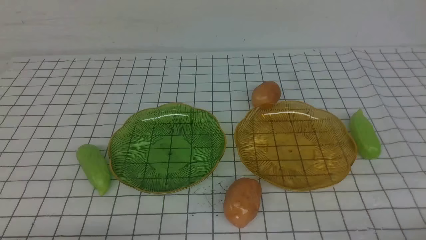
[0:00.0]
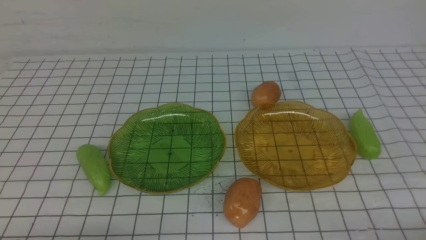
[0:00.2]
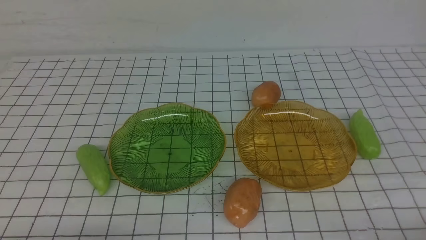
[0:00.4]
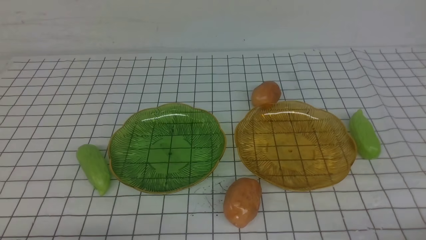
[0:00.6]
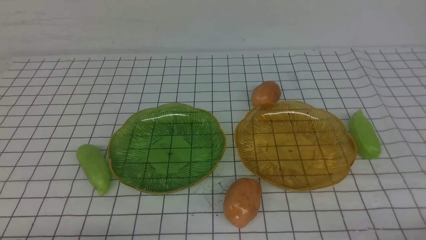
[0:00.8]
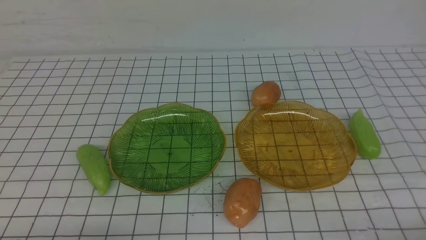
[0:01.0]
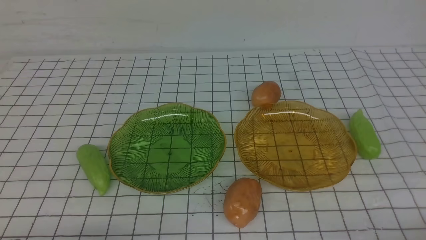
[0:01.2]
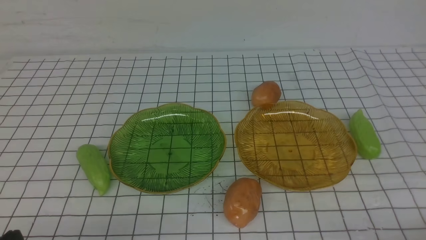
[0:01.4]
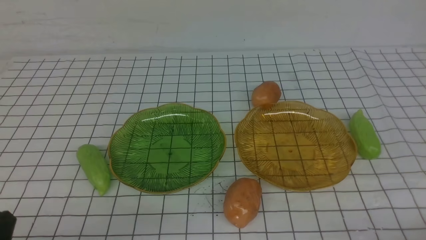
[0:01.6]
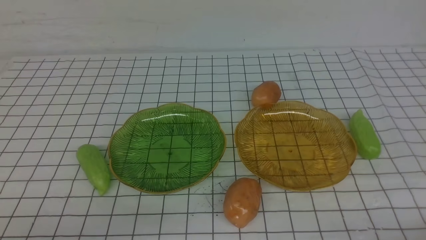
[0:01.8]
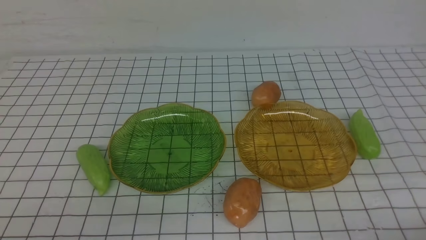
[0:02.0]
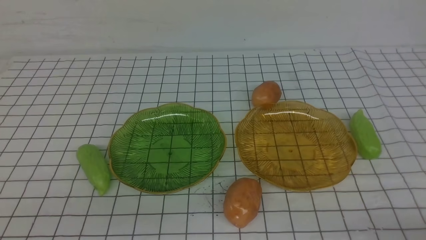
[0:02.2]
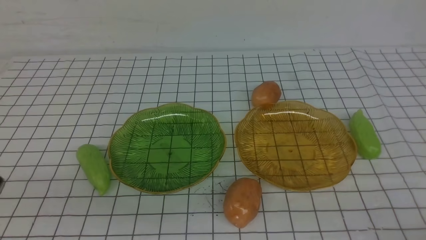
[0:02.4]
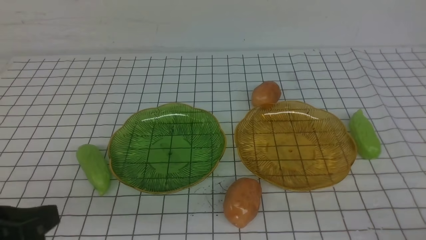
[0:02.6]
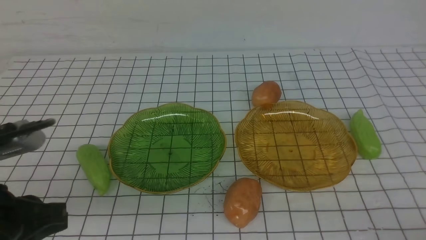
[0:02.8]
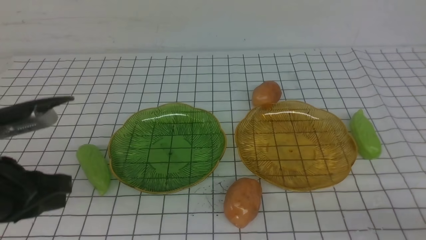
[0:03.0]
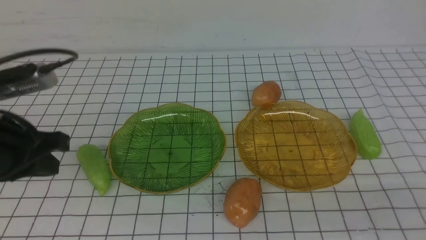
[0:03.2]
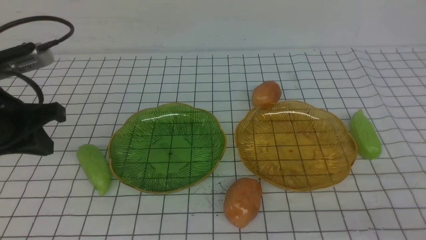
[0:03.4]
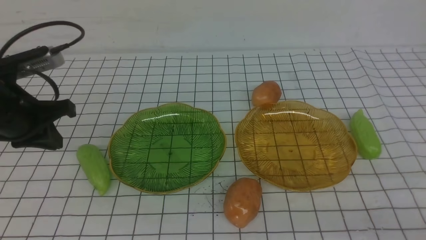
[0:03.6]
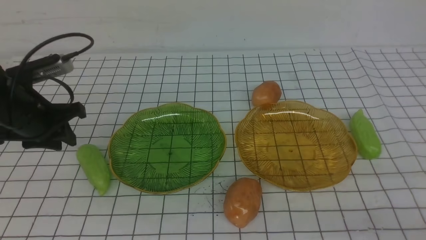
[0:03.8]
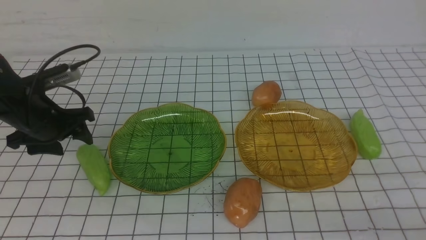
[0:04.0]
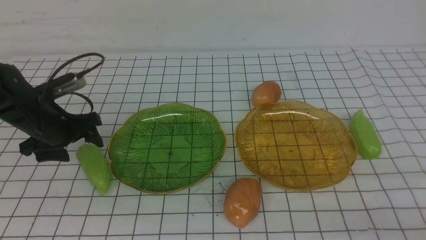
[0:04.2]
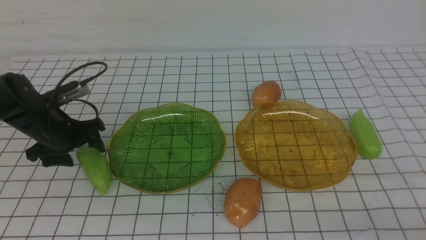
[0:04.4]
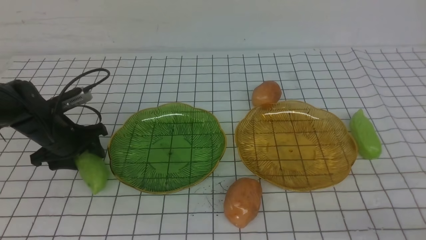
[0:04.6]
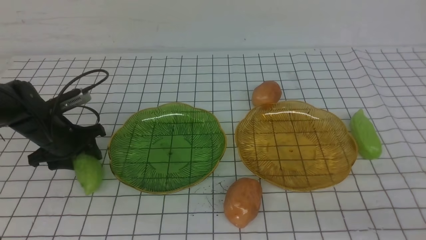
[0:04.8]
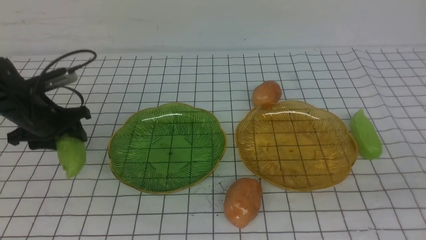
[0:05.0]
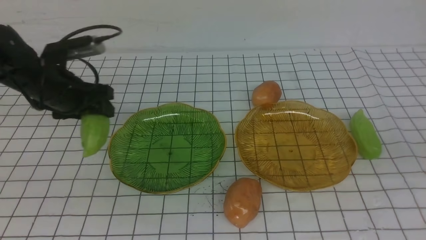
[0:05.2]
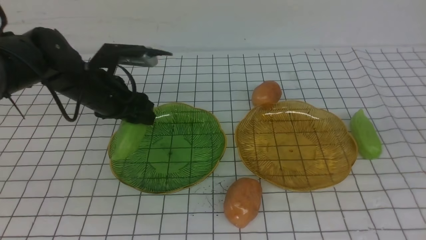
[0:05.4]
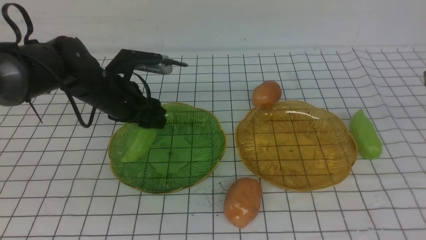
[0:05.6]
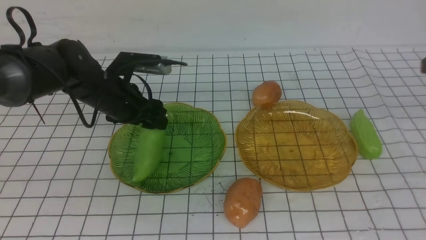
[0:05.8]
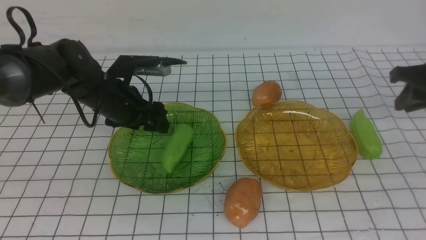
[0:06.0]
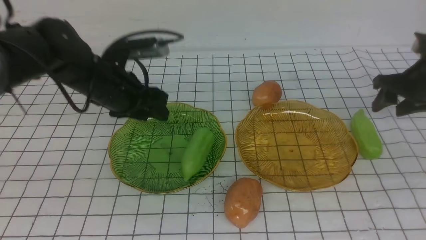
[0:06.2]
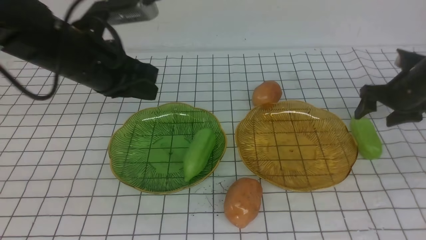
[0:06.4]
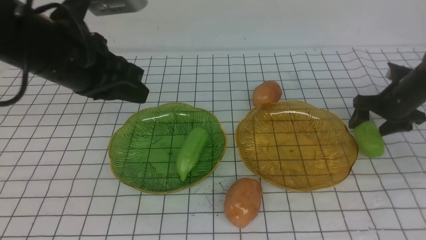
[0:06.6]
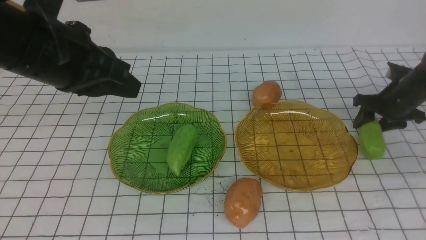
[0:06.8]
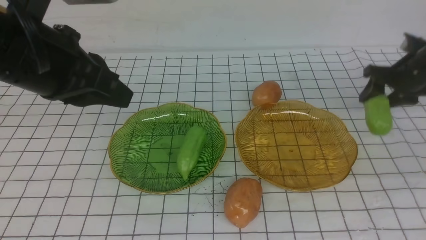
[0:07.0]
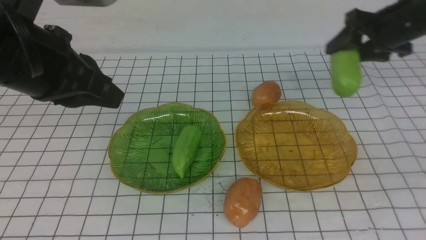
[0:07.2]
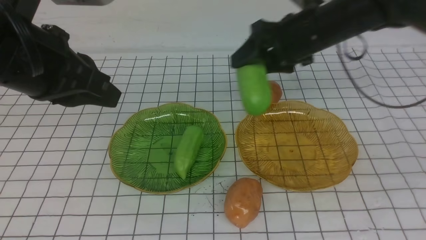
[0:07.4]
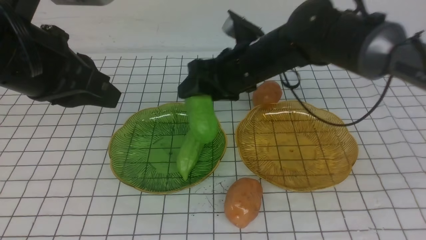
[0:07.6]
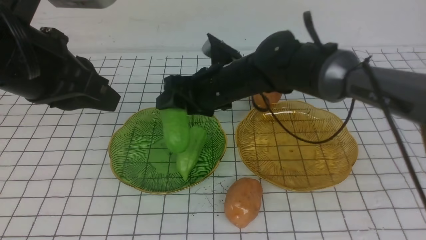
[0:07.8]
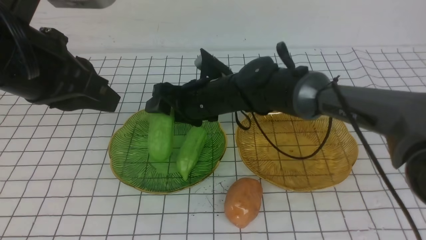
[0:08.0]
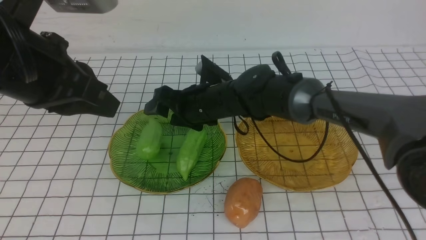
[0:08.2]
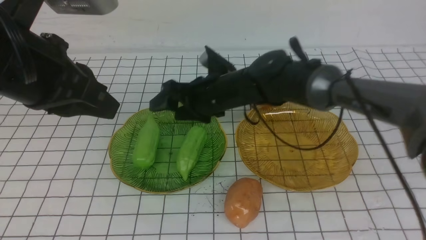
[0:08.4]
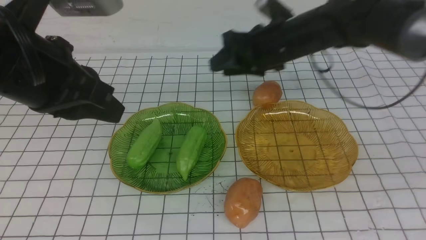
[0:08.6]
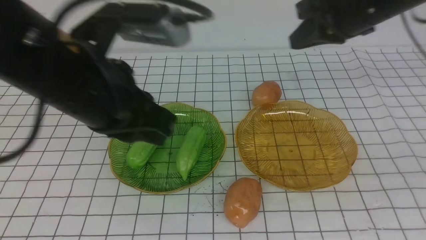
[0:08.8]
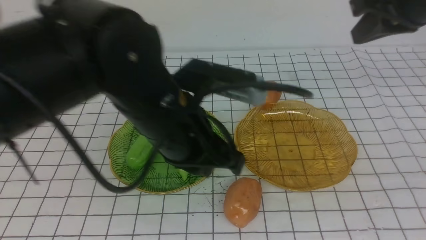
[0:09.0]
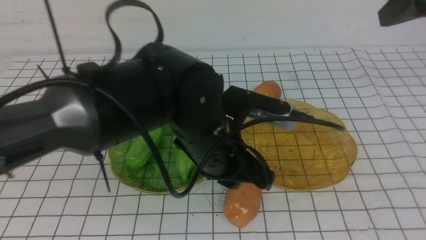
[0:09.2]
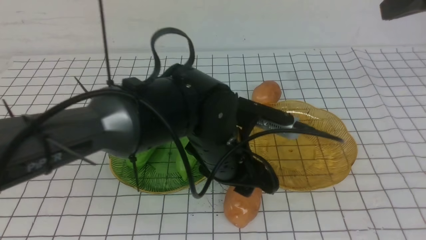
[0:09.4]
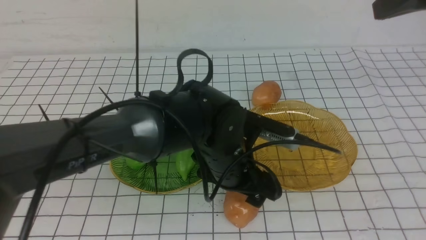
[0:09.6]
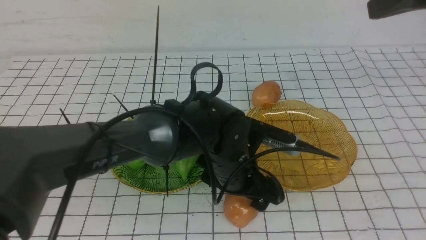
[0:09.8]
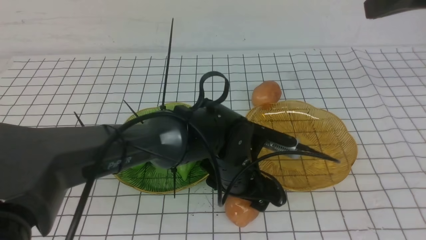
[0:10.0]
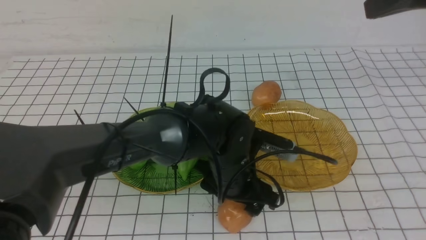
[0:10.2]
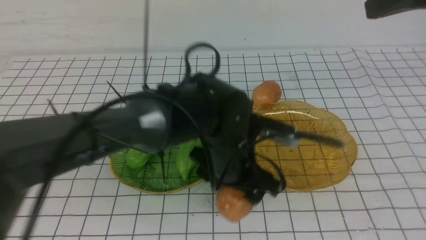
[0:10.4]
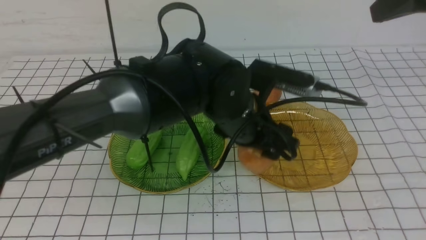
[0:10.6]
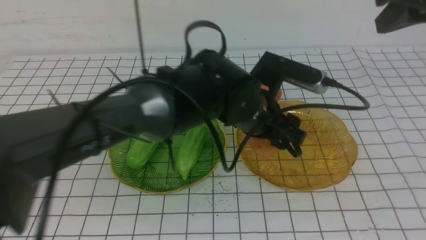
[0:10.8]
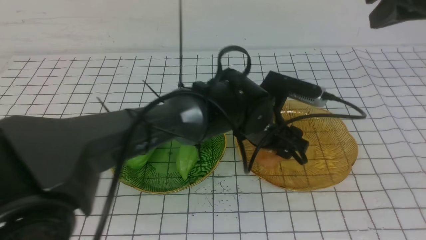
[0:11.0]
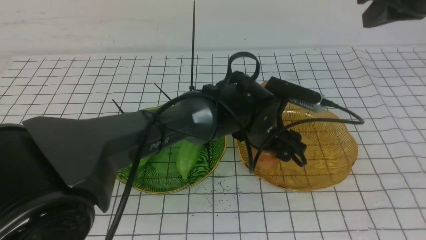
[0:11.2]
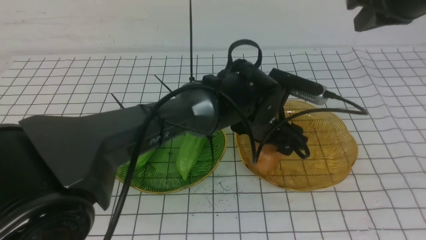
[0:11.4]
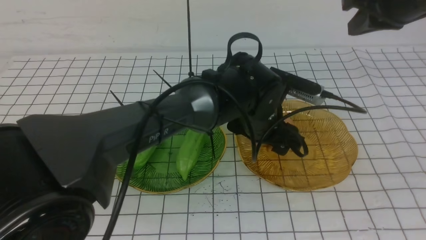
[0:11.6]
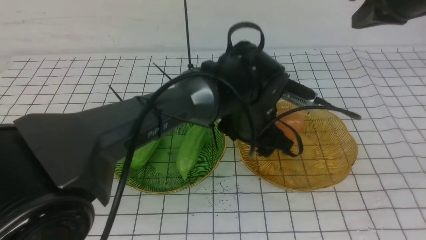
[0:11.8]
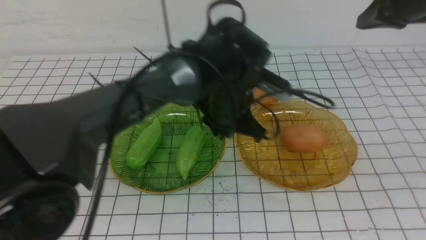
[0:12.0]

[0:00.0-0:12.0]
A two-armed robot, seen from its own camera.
Step, 0.0 to 5.8 s: use the left arm to grab a chayote and put it into the left plate.
Step, 6.0 to 8.4 s: Grab the chayote with your right arm and put it on the left plate.
Step, 8.6 to 11.8 s: Grab a potato with your left arm and put it on the right plate.
1.6 to 3.0 s: The left gripper heads forward and upward, covering about 15 cm.
3.0 to 4.4 s: The left gripper goes roughly 25 cm forward and downward, and opens its fingers.
4.4 to 6.0 s: The right gripper heads forward, covering roughly 30 cm, while the left gripper shifts approximately 15 cm to the right and upward.
6.0 to 7.6 s: The left gripper heads upward and backward, covering approximately 20 cm, and closes; the right gripper shifts approximately 30 cm to the left.
7.6 to 9.0 s: The right gripper heads to the right and upward, covering about 25 cm, and closes; the left gripper shifts some 15 cm to the right and downward.
9.0 to 10.4 s: The left gripper is displaced downward and to the right by approximately 10 cm, and opens its fingers, while the right gripper moves approximately 5 cm.
10.4 to 12.0 s: The right gripper shifts some 15 cm forward and downward. The left gripper is displaced forward by some 5 cm, and closes.

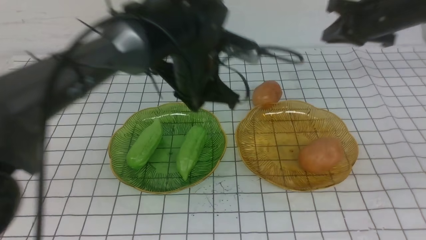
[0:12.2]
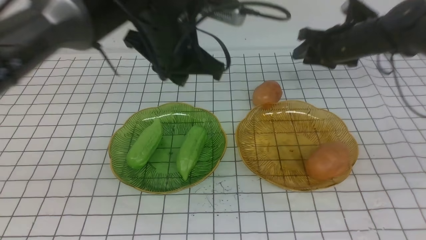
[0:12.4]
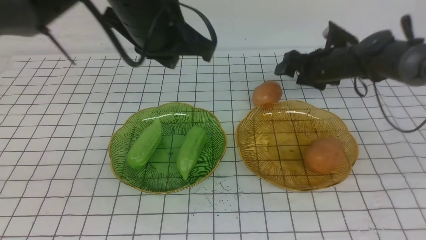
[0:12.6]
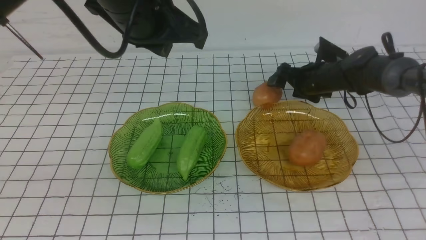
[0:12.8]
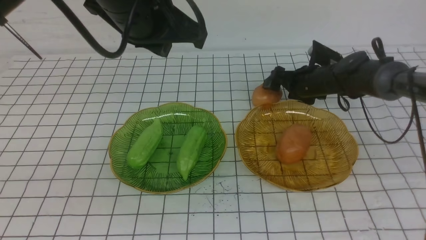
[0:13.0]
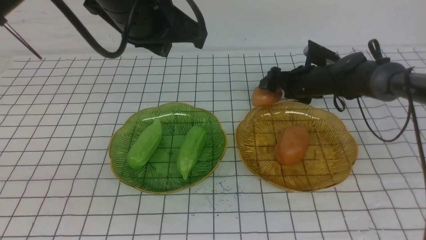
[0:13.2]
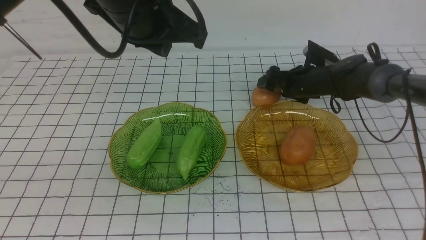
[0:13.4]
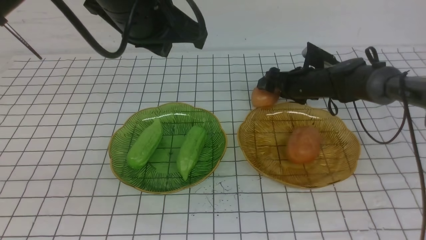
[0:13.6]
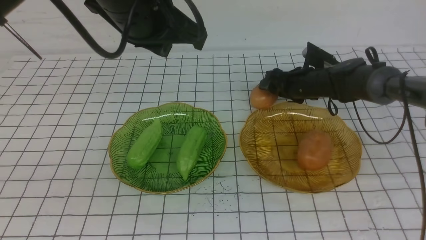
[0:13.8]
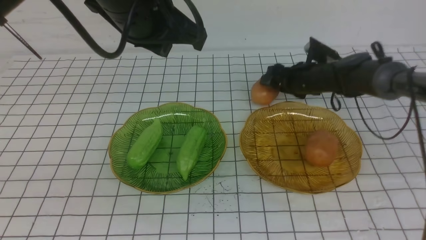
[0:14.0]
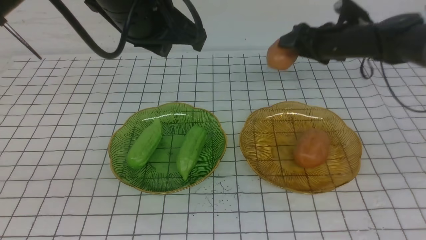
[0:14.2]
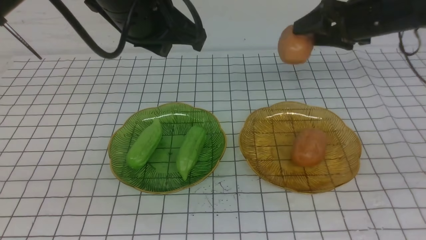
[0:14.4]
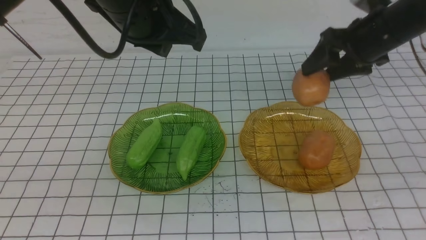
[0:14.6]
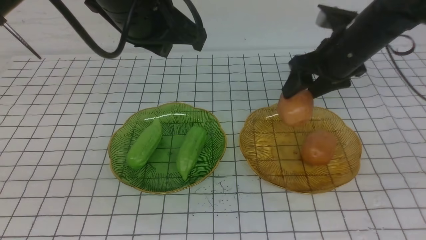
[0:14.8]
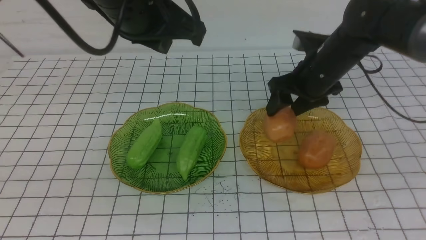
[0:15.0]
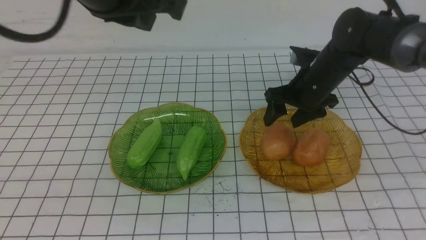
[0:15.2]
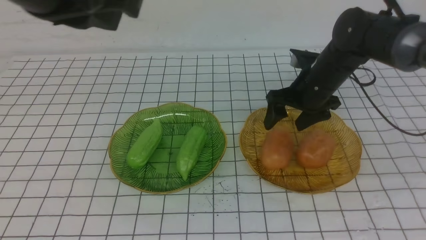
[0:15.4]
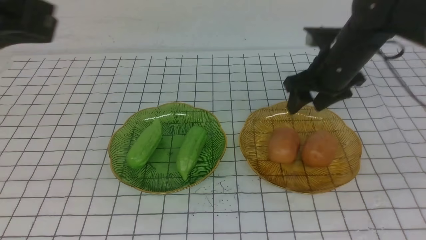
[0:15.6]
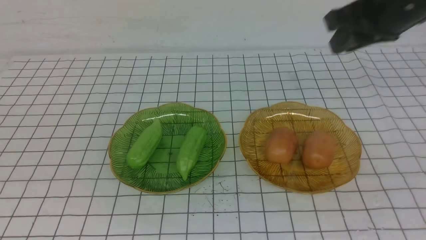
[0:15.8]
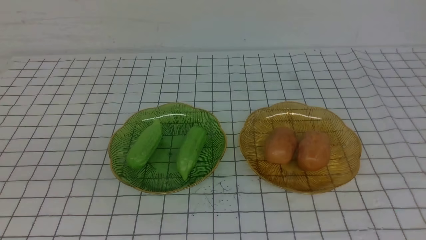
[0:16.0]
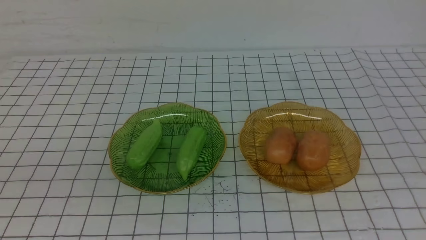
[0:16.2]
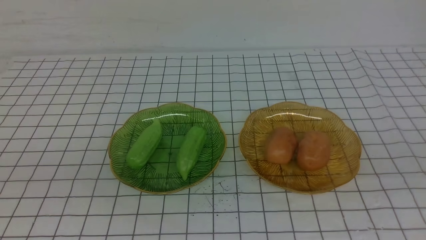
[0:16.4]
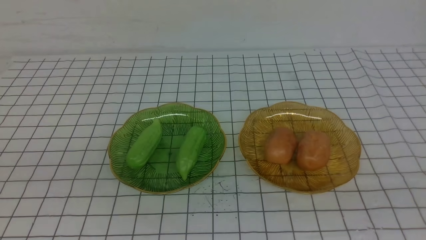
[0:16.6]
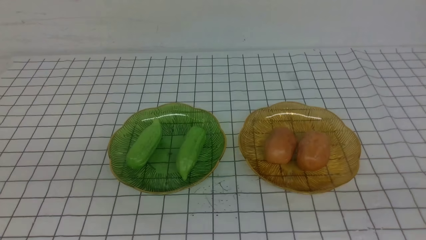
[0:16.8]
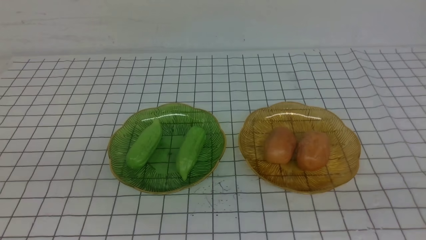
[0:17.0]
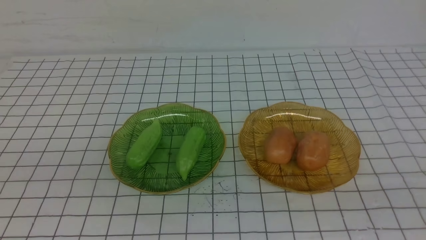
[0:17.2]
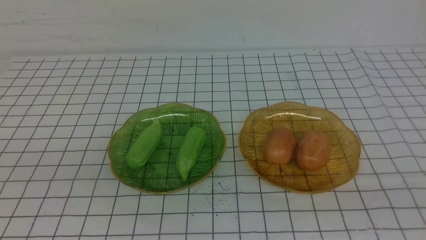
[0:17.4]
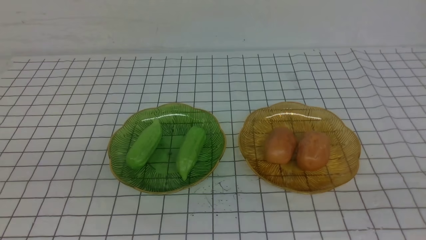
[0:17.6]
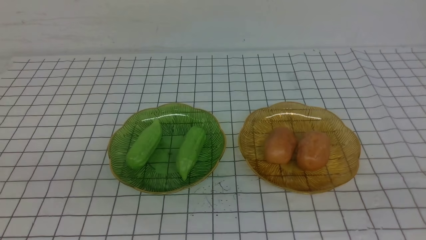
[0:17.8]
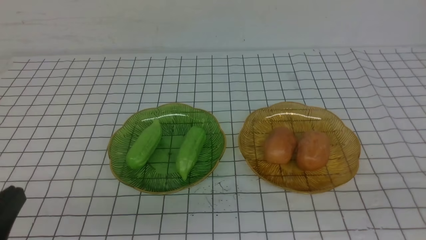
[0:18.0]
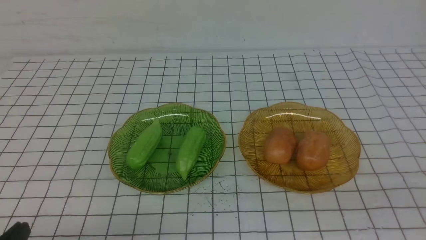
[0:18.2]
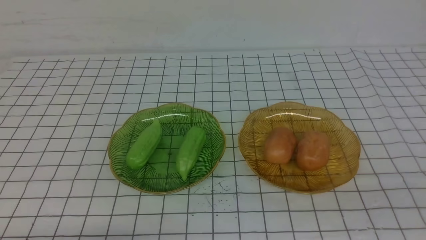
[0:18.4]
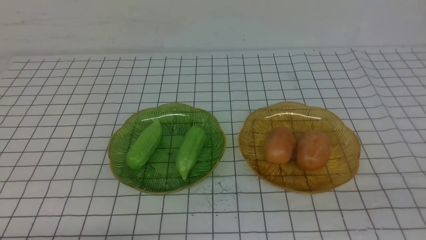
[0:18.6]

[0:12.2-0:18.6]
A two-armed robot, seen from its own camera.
Step, 12.2 to 15.4 s: Grab a potato with your right arm and put it on the right plate.
12.2 to 13.8 s: The right gripper travels downward and to the left by some 15 cm, and opens up; the left gripper moves upward and to the left, about 10 cm.
13.8 to 15.4 s: The left gripper travels backward, to the left and upward by about 15 cm, while the right gripper travels upward and backward by about 15 cm.
15.4 to 17.0 s: The right gripper travels backward by approximately 40 cm, and closes. The left gripper is displaced backward, to the left and downward by some 20 cm.
